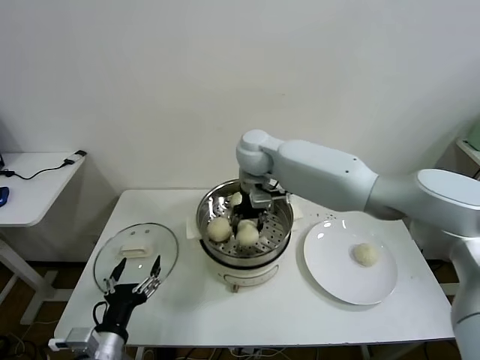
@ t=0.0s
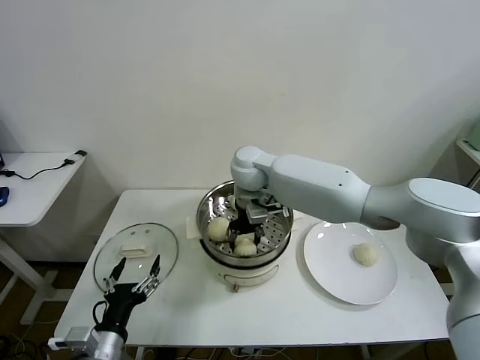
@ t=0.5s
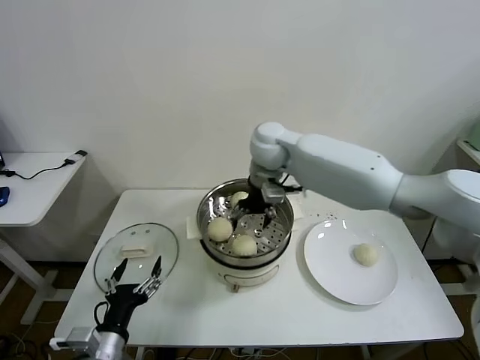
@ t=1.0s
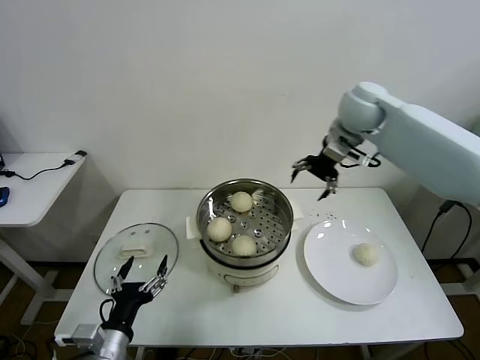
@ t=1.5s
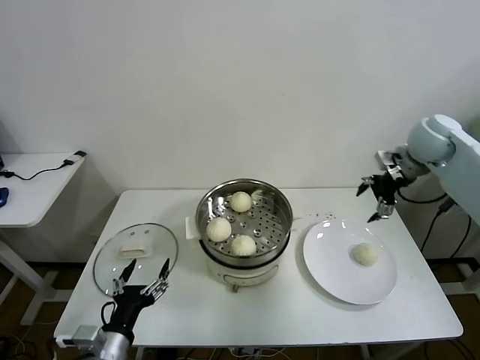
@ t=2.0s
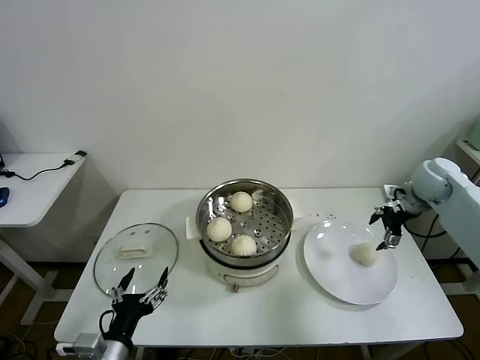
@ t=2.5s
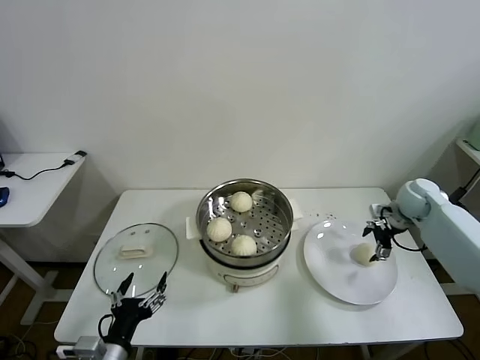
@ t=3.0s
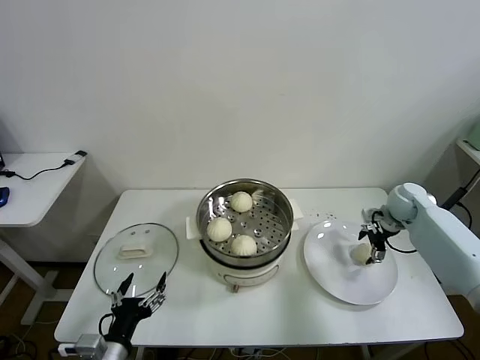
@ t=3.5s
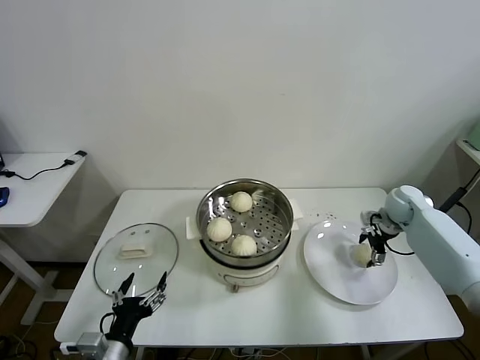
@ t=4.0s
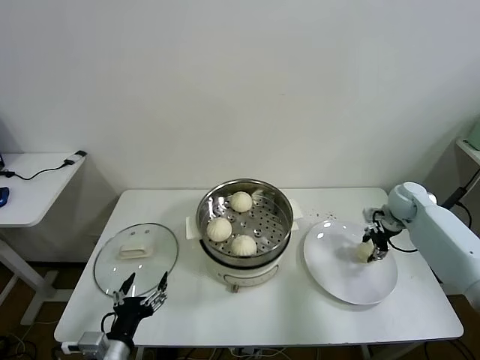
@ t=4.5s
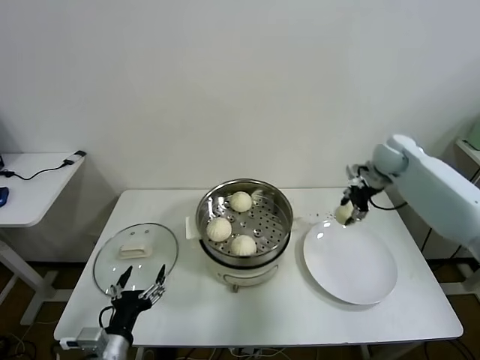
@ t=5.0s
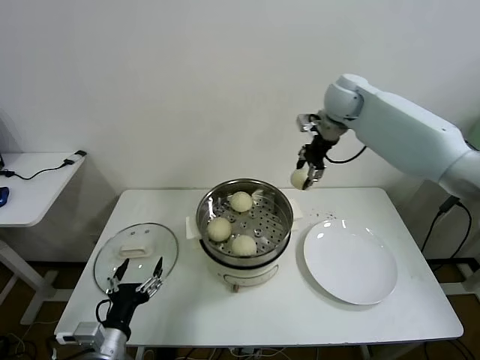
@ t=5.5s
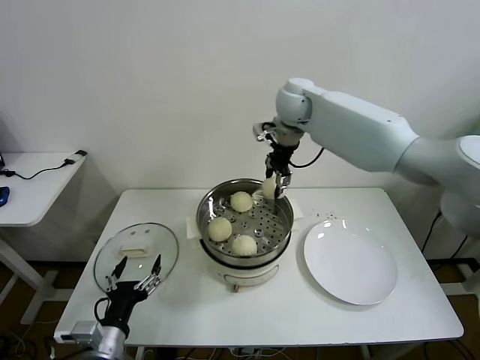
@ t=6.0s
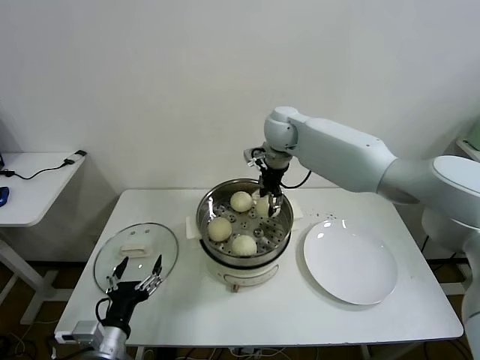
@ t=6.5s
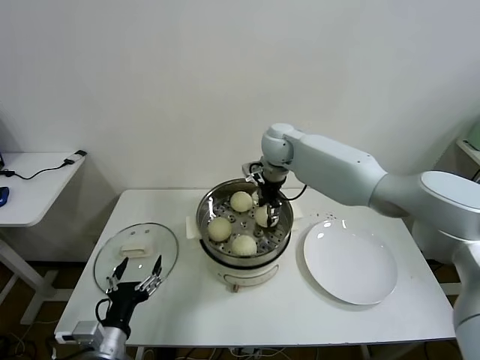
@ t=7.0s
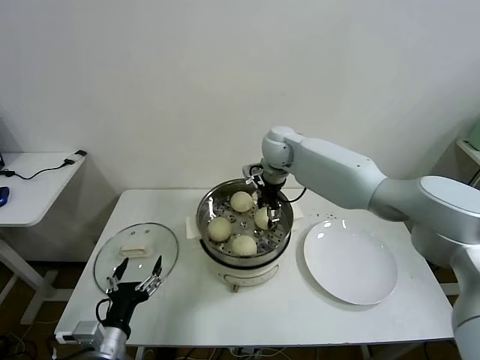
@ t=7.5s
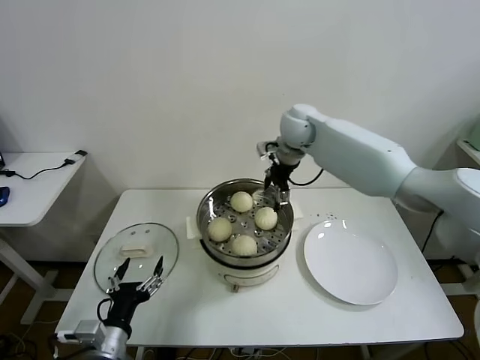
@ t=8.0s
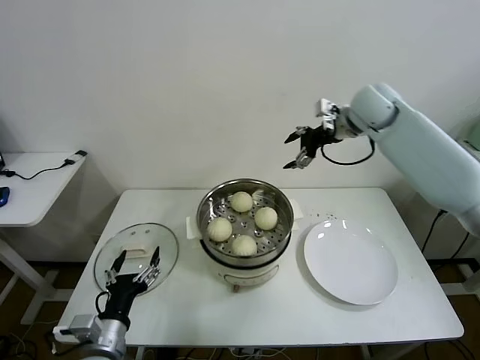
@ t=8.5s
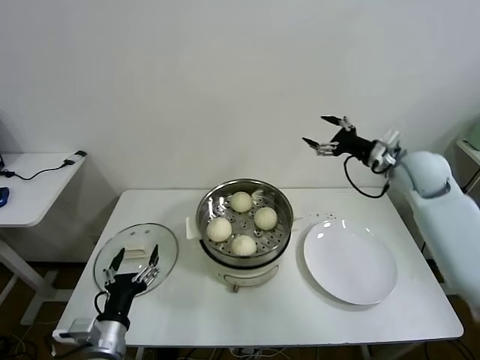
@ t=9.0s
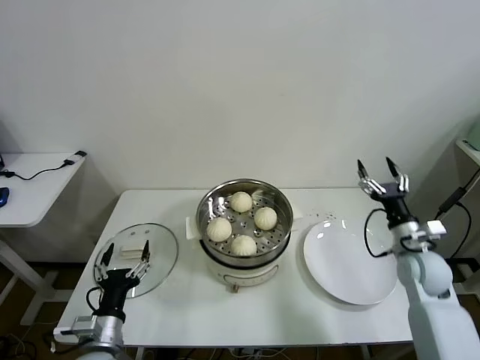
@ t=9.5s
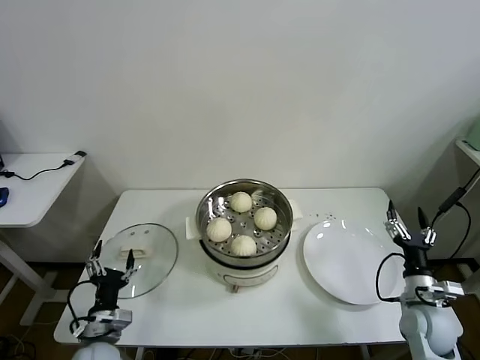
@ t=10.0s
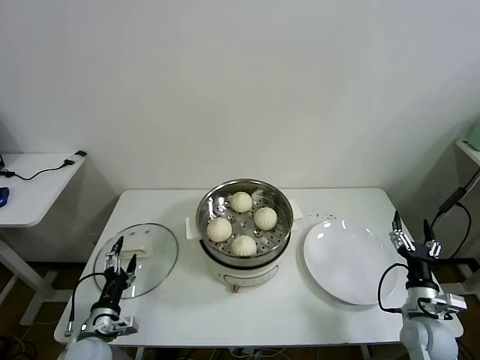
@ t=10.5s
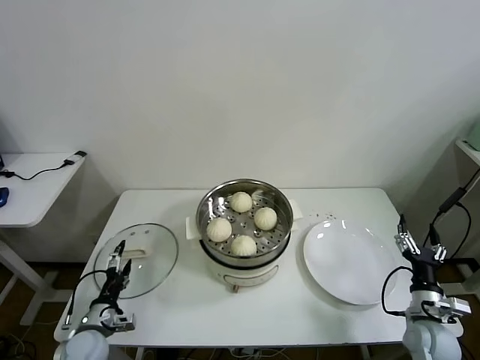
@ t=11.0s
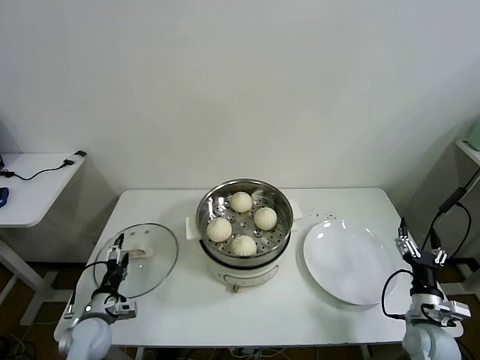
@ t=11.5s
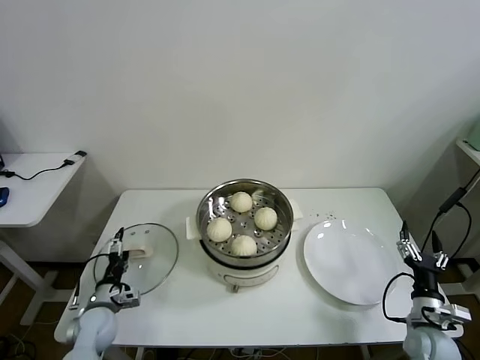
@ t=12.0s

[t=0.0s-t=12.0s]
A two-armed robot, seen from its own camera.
Task of the whole recording: take steamed baozi put them in steamer then cover it.
Step, t=1.0s to t=4.0s: Grasp the baozi in the plate with right gripper.
Step, t=4.5s to t=7.5s: Place the baozi on the steamer with right gripper.
t=0.0s to t=2.0s: The right gripper heads to the right, covering approximately 40 cm, and opens.
t=2.0s to t=4.0s: The right gripper travels downward by some 20 cm.
t=4.0s to t=6.0s: The right gripper moves to the left and upward, about 40 cm, and closes.
t=6.0s to t=8.0s: The right gripper is displaced downward by about 5 cm, and opens its fingers.
t=8.0s to t=10.0s: The left gripper travels downward by roughly 5 cm. Meanwhile the right gripper is displaced backward, downward and to the right by roughly 50 cm.
t=10.0s to t=12.0s: The left gripper travels forward, to the left and downward by approximately 10 cm.

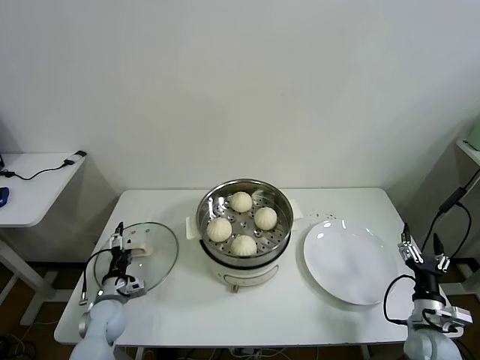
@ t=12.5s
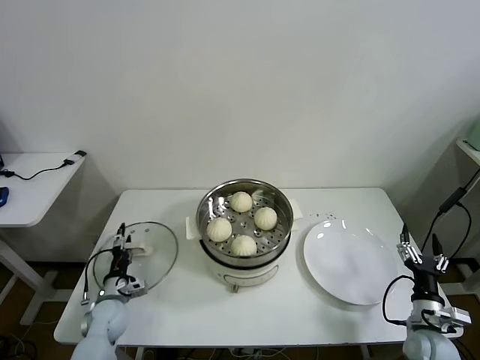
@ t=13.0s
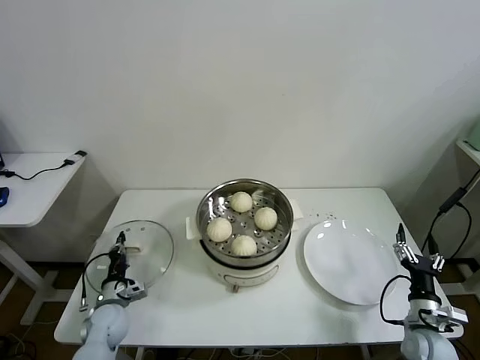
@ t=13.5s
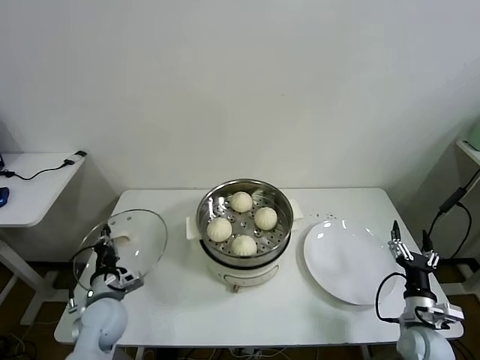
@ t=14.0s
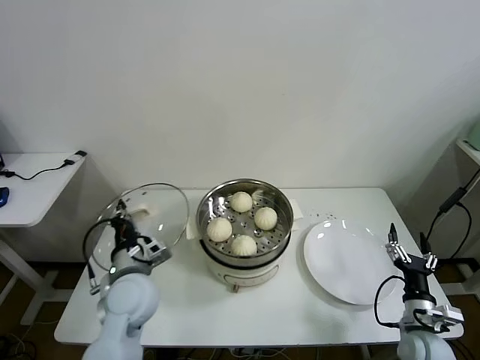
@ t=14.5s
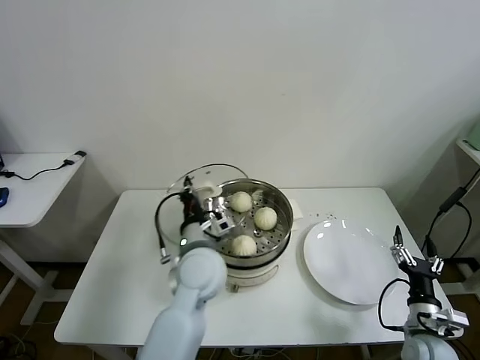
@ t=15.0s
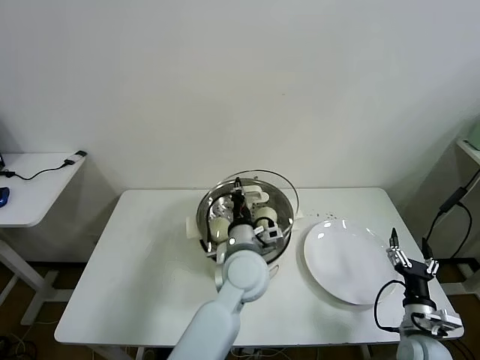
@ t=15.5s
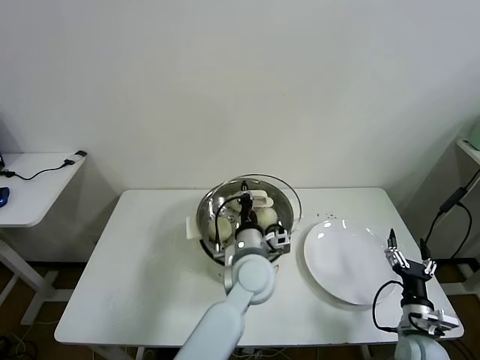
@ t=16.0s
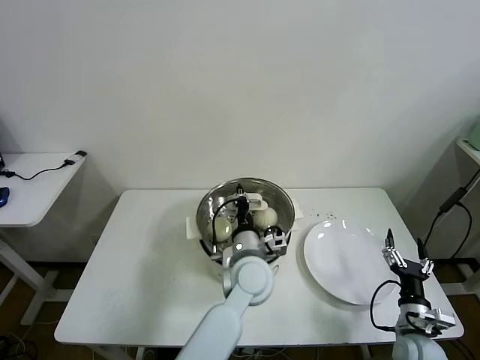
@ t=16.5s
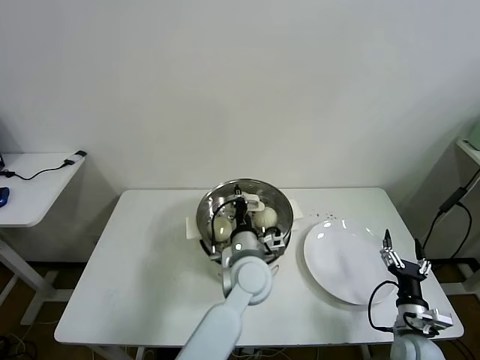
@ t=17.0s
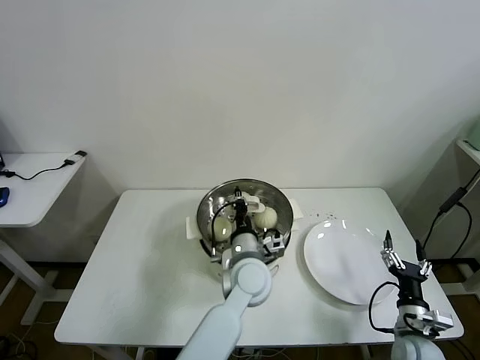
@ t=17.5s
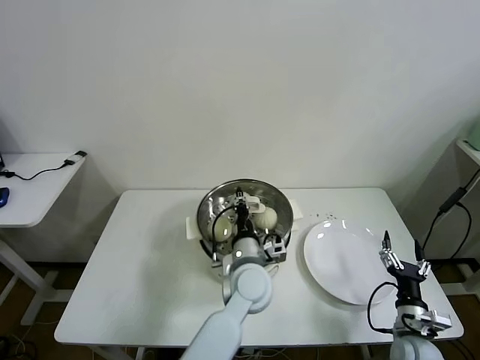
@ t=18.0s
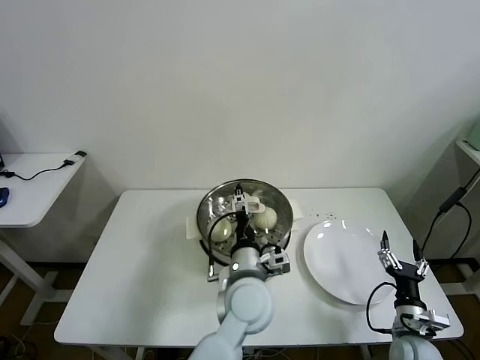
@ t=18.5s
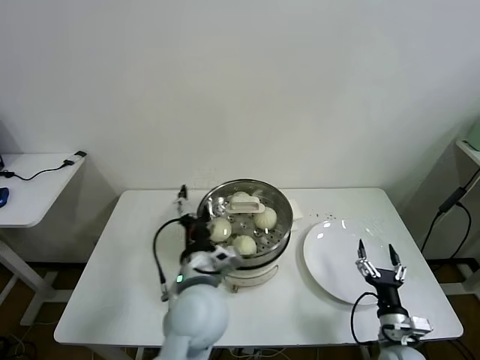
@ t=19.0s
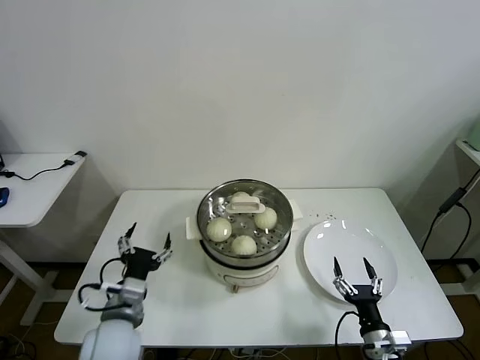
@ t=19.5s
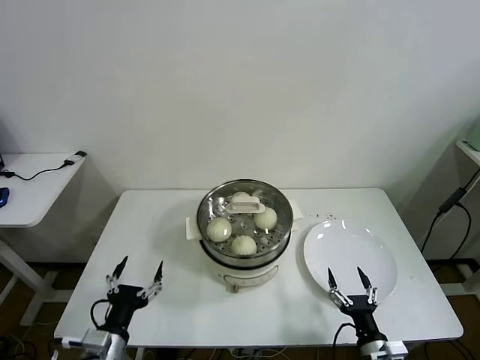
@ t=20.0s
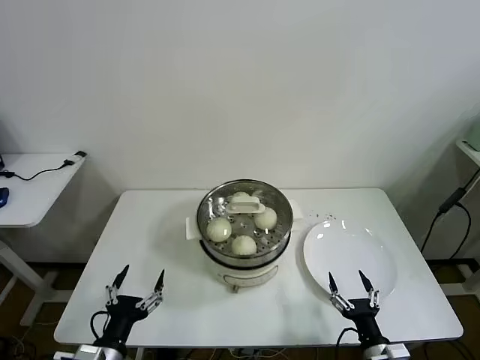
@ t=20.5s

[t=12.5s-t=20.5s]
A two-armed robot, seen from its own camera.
Task of the whole recording: take steamed baozi put them in steamer then cover it.
Step, t=14.0s to t=18.5s: Place the pot lid on the steamer with left gripper.
t=12.5s to t=14.5s: The left gripper heads upward and to the right, covering approximately 25 cm, and closes its fingers.
t=14.5s to t=16.5s: The left gripper goes approximately 25 cm to the right.
t=16.5s to t=18.5s: The left gripper opens up.
t=18.5s to t=20.5s: The right gripper heads backward and to the left, covering approximately 10 cm. The left gripper shifts about 35 cm to the left and backward.
